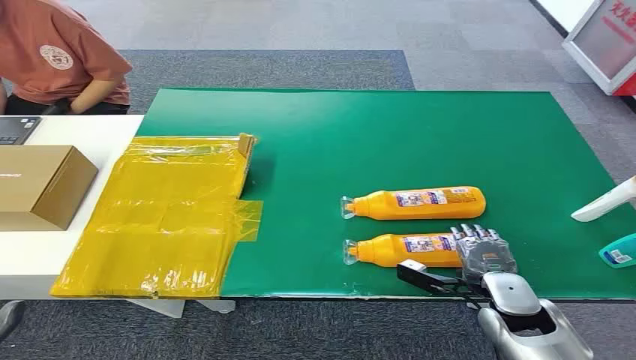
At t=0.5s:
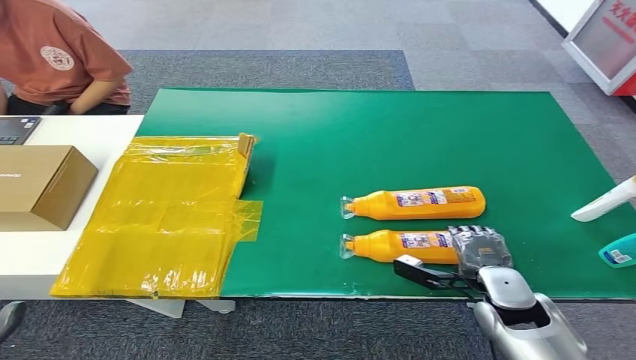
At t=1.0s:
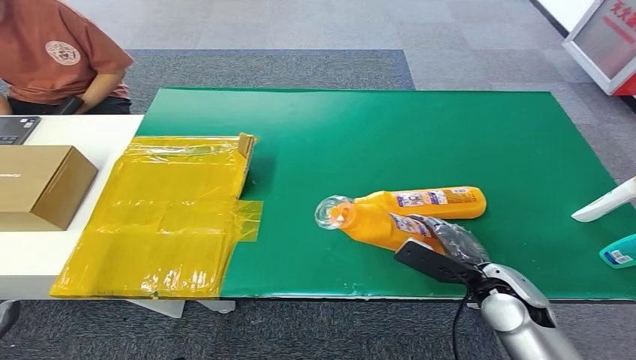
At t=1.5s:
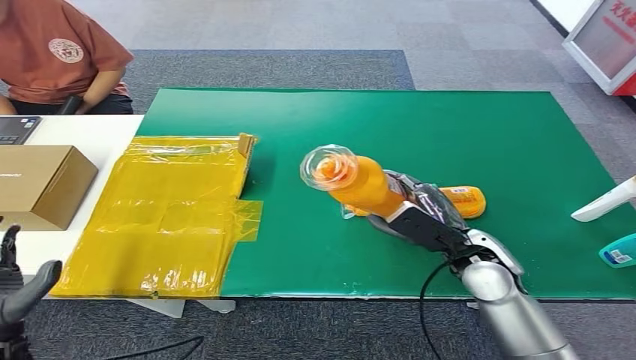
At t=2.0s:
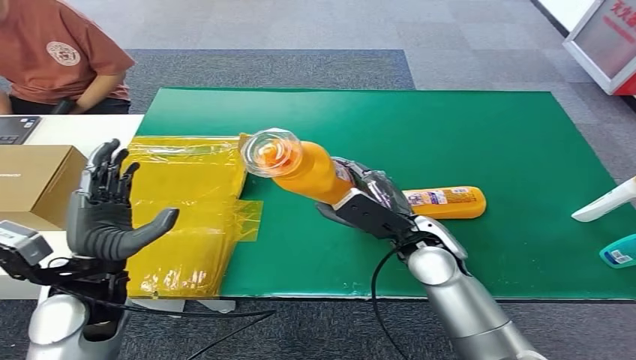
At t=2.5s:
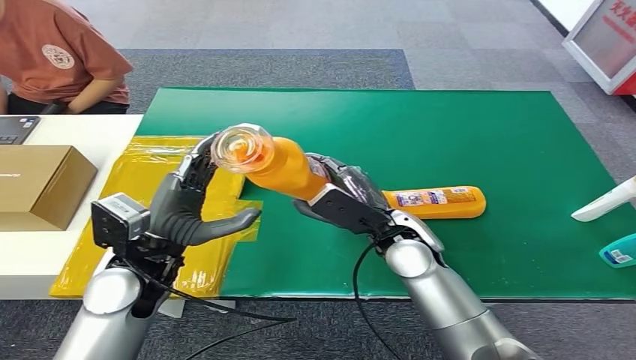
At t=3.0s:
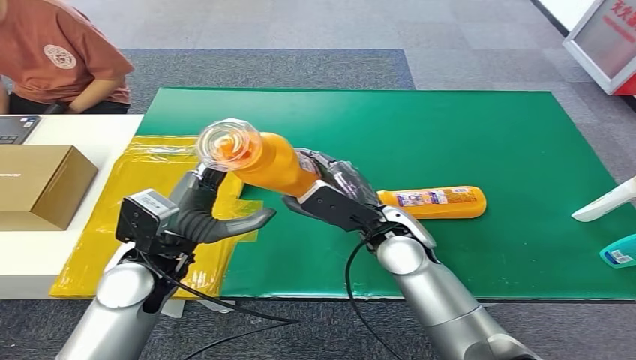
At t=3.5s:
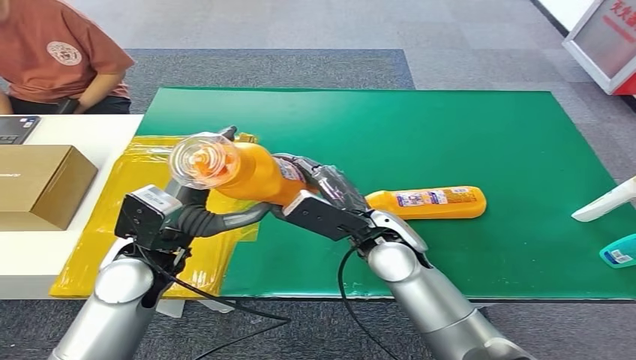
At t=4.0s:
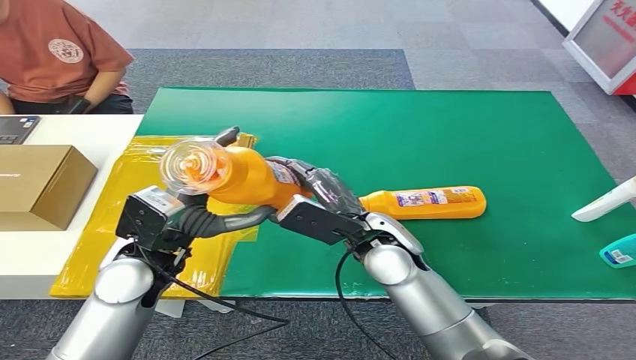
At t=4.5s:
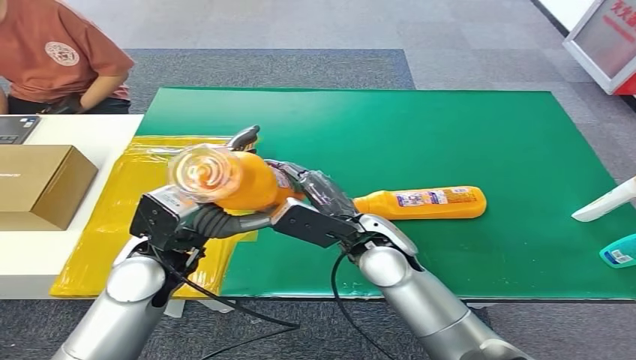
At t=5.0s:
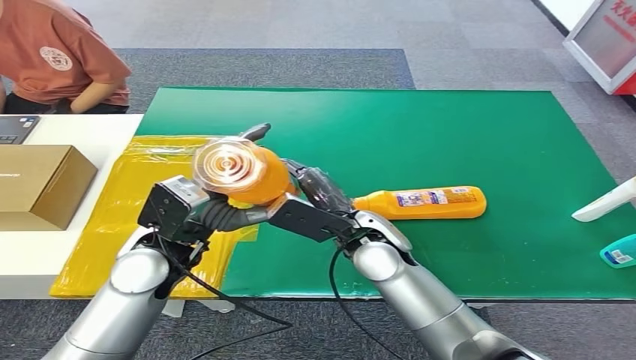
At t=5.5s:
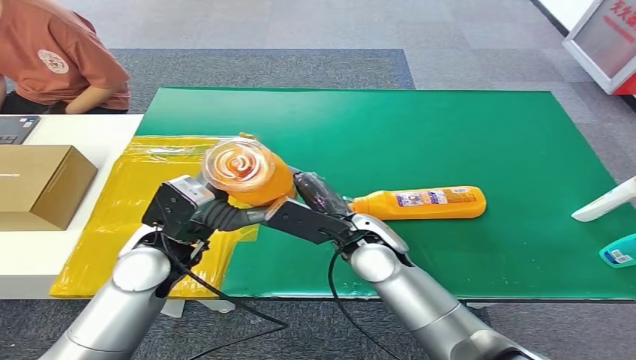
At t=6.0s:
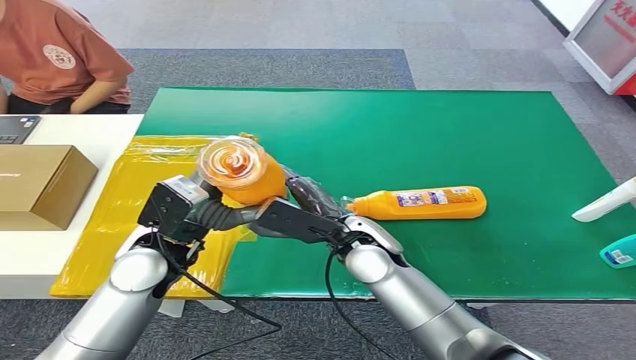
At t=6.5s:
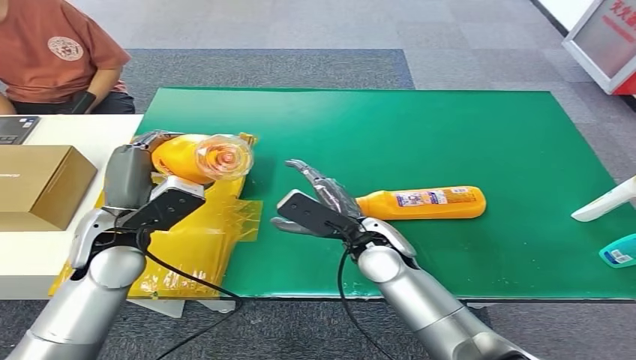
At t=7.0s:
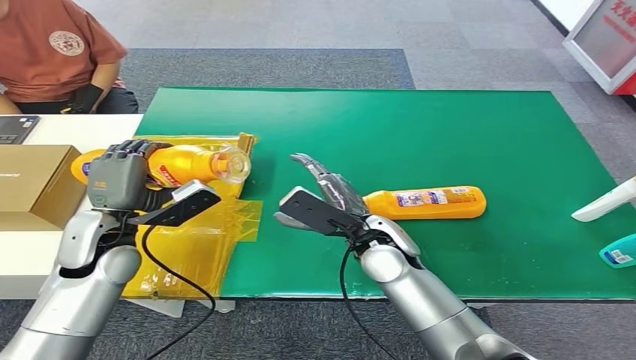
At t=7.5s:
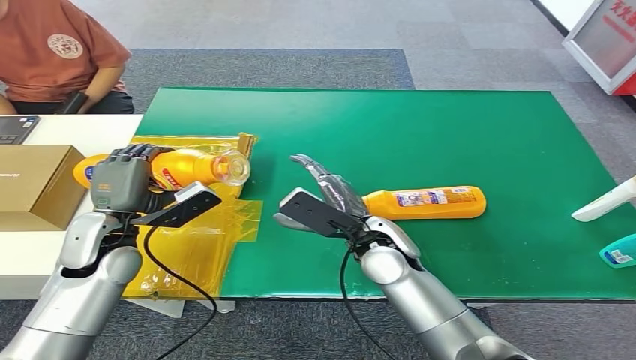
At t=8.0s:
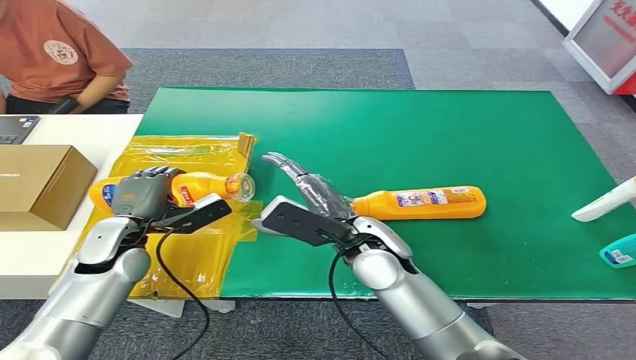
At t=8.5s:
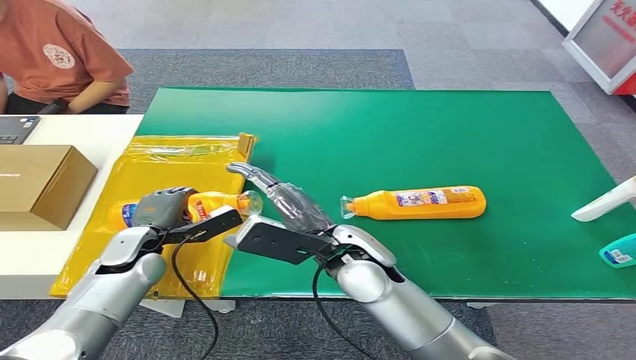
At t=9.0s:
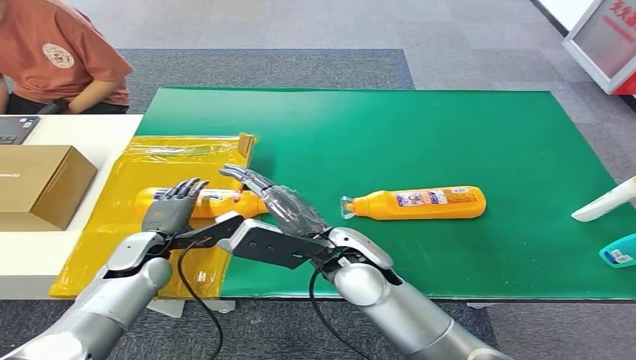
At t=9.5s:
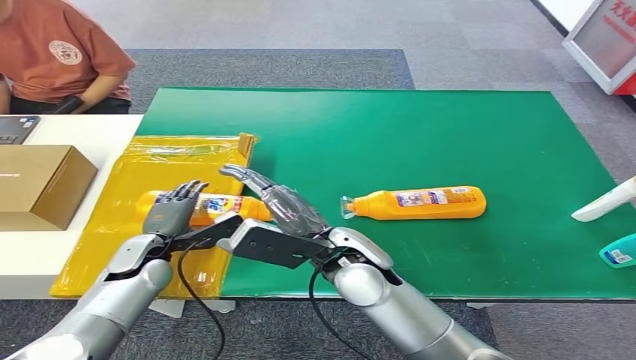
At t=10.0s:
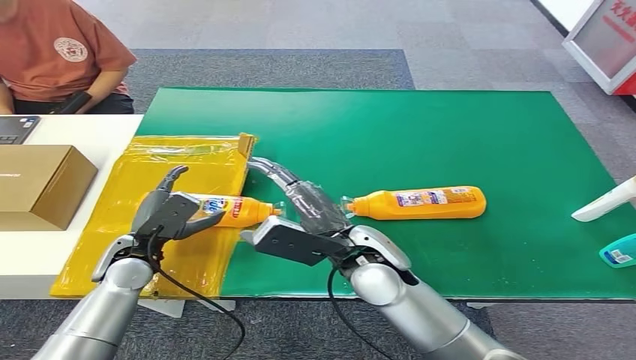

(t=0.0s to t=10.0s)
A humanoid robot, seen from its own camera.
Step, t=0.0s - t=1.0s: Pick up the bottle from the table.
Step, t=2.0s - t=10.0s: Turn the bottle to the front side.
t=4.0s - t=6.0s: There are only small adjustments of the hands.
t=6.0s - t=8.0s: The left hand shifts roughly 15 cm to the left, downward and forward.

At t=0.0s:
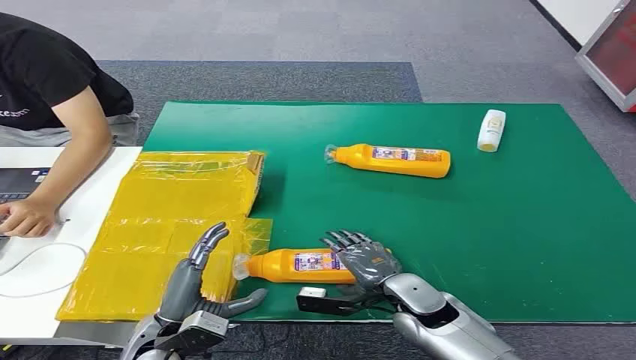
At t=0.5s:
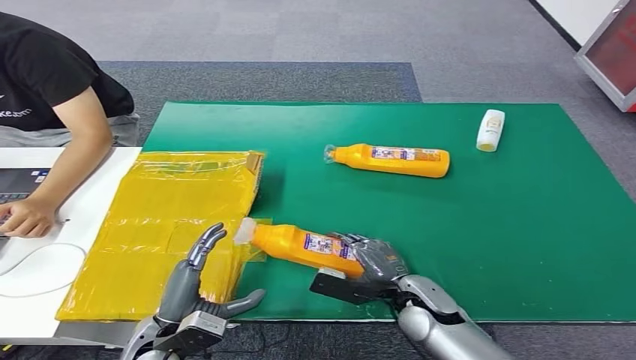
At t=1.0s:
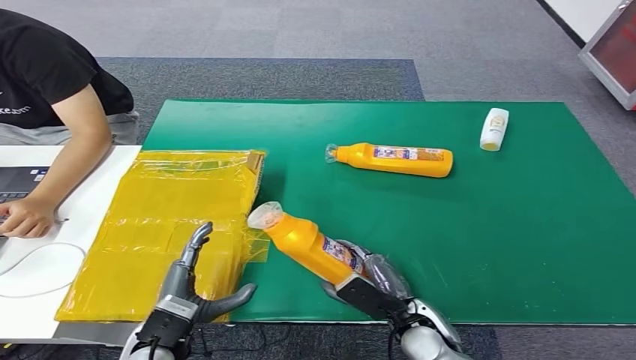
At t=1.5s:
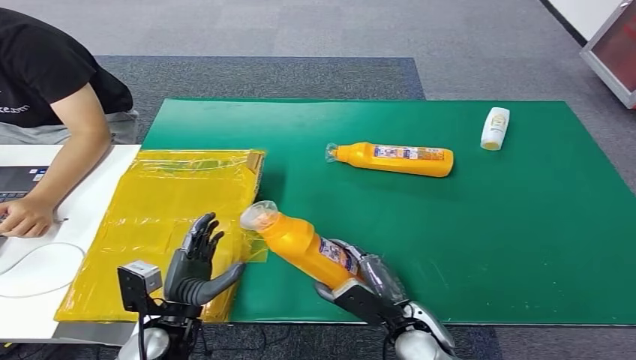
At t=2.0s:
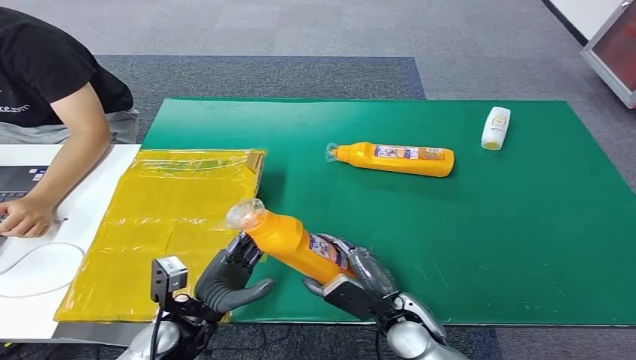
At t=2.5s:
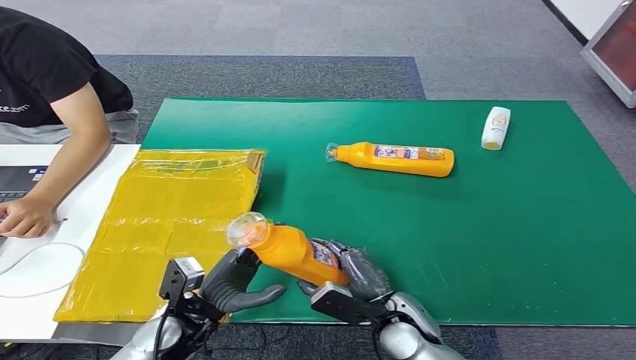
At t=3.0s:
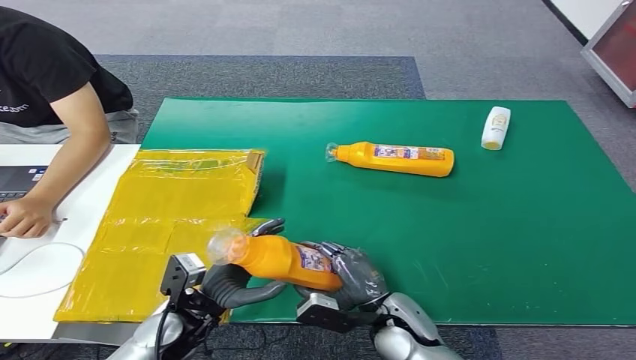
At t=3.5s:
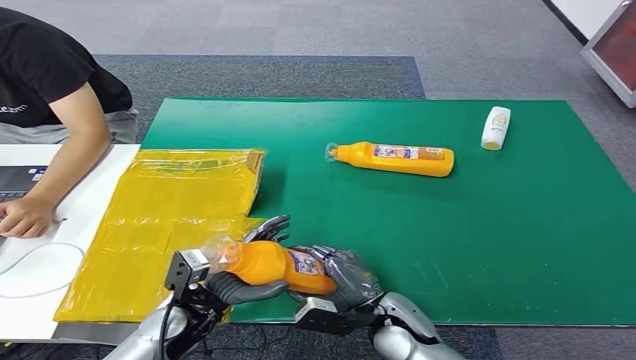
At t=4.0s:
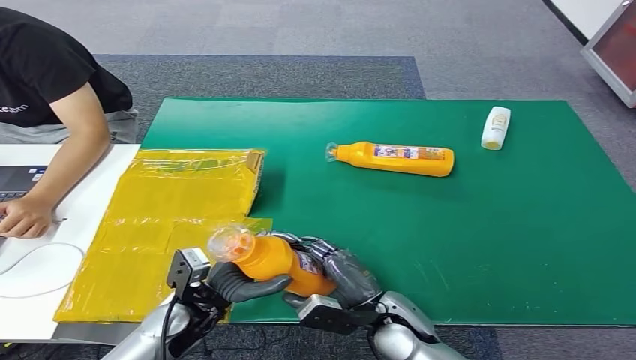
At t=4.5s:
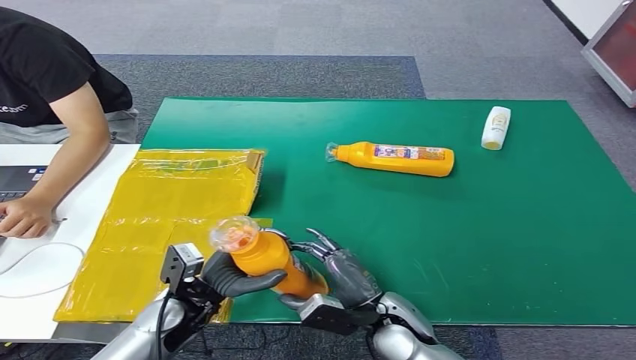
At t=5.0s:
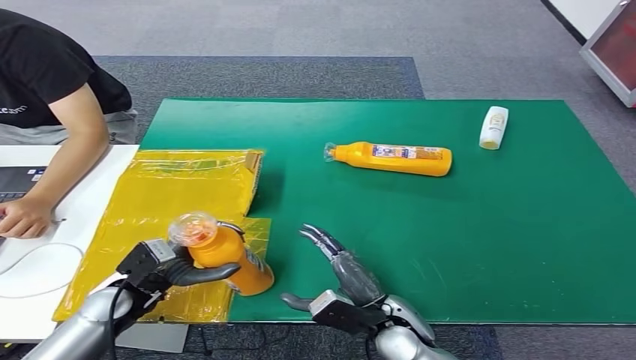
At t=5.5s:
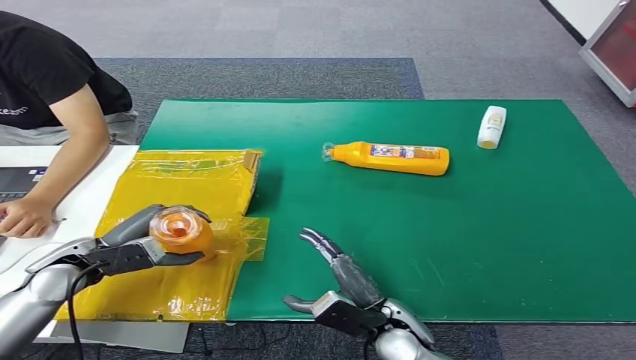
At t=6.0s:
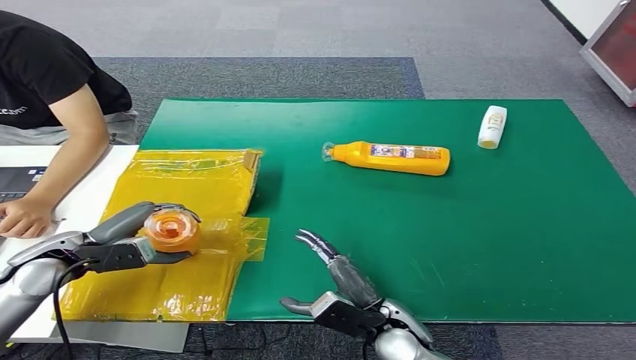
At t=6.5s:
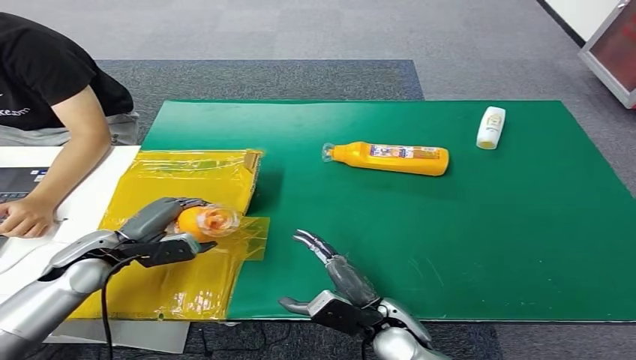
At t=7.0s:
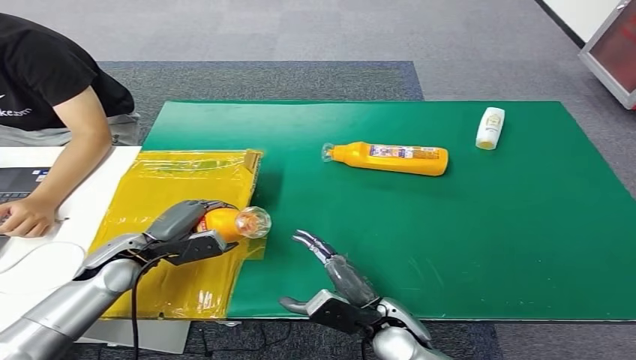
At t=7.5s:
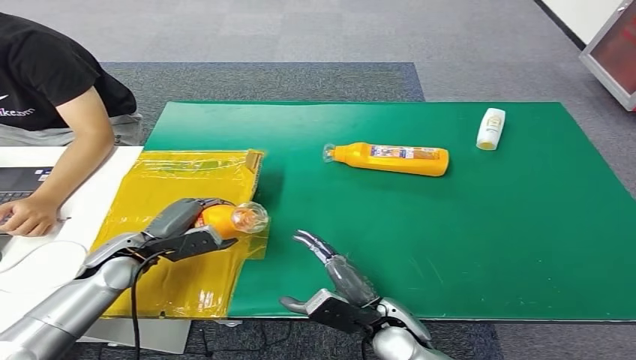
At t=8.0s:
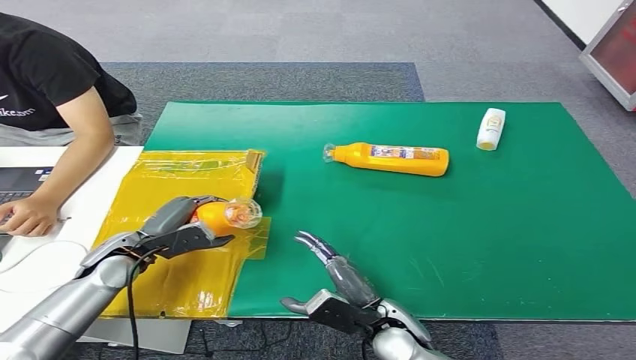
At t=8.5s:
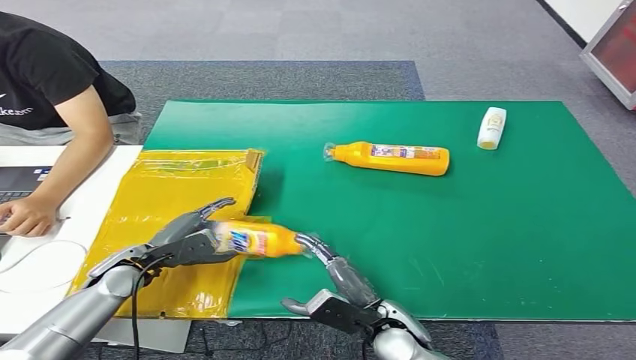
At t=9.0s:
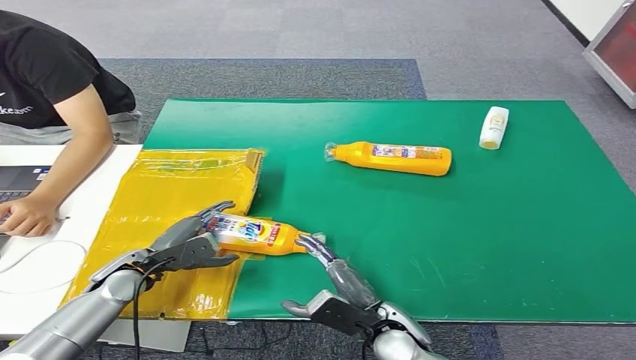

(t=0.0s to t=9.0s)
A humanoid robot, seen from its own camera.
Step, t=0.0s - t=1.5s: Pick up the bottle from the table.
Step, t=2.0s - t=9.0s: Turn the bottle to the front side.
t=2.0s - t=4.5s: The hands stay close to where they were, moving slightly.
t=4.5s - t=7.0s: The left hand shifts about 15 cm to the left and forward.
